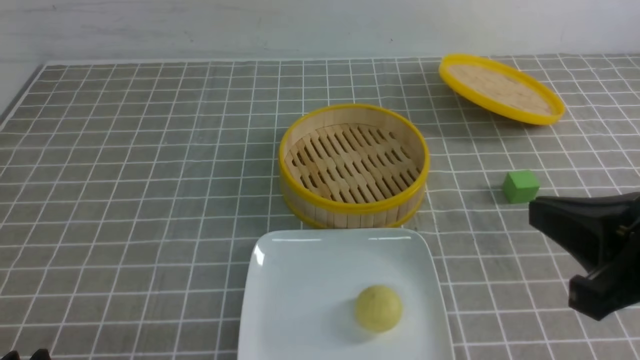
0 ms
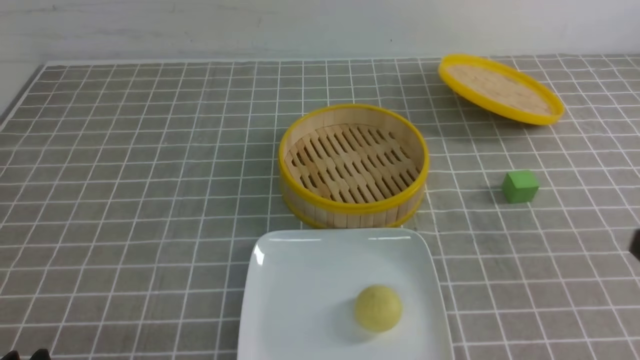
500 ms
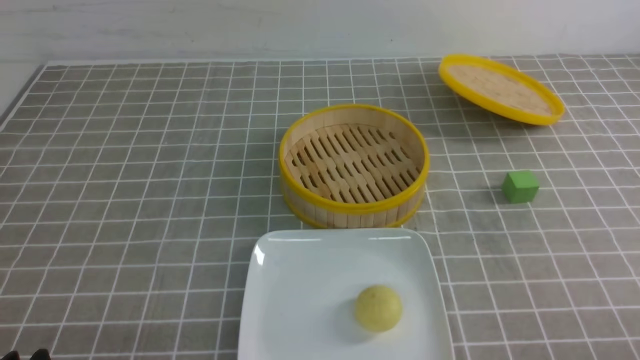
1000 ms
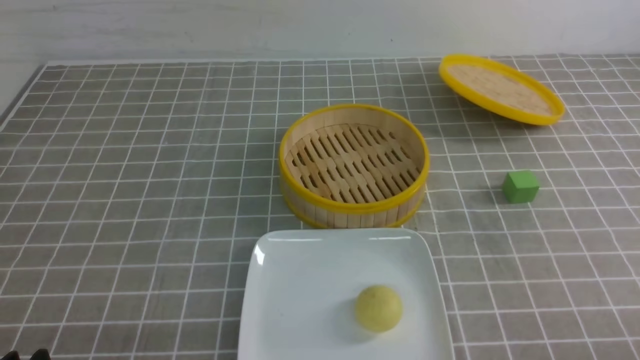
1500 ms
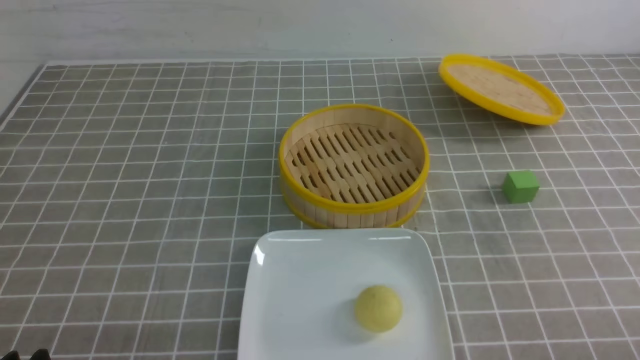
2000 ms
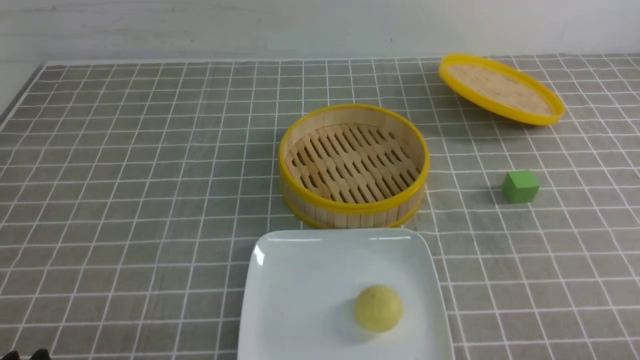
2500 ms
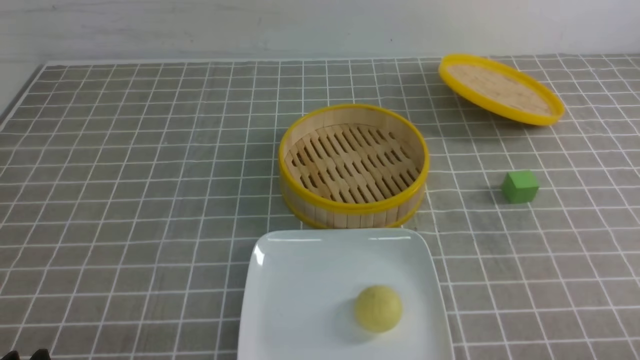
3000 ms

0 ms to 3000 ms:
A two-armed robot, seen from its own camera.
0 ms to 1500 ms: The right gripper travels downward, to the right and backward by some 20 cm.
1500 ms to 3000 ms: Both grippers stay put.
